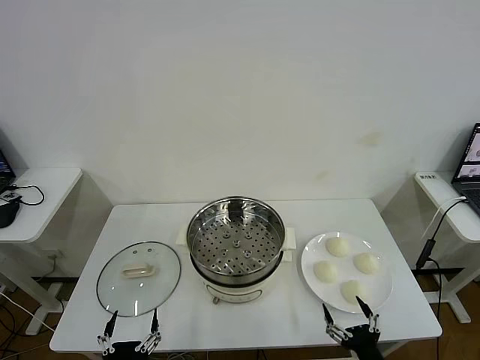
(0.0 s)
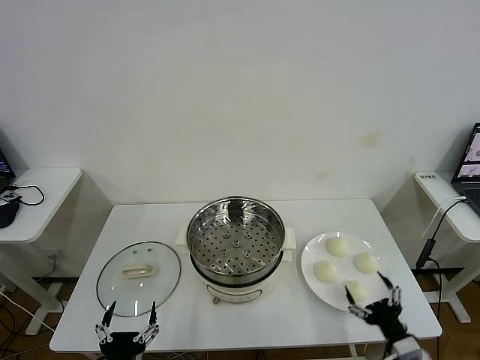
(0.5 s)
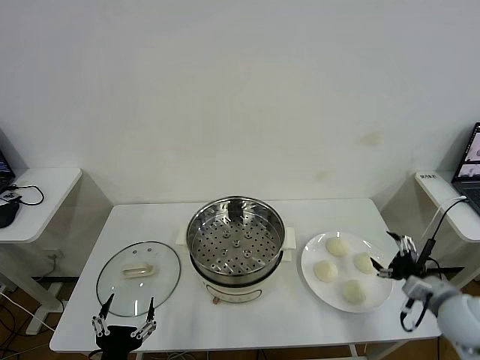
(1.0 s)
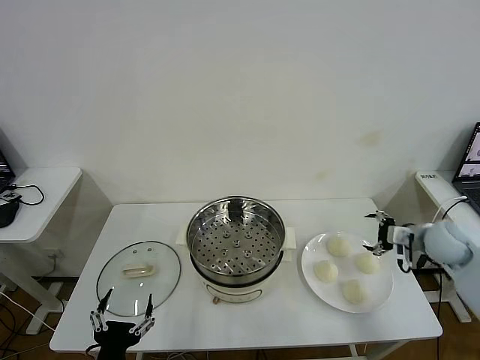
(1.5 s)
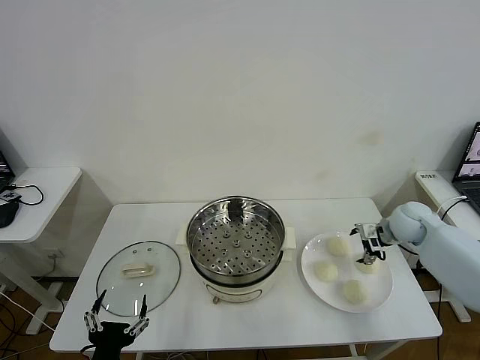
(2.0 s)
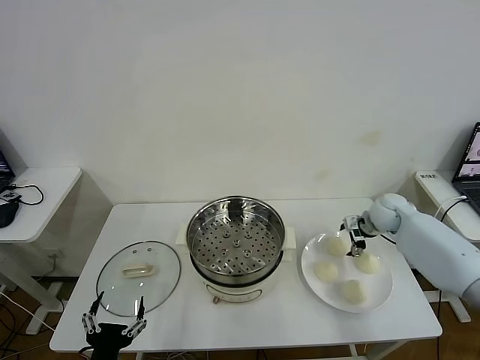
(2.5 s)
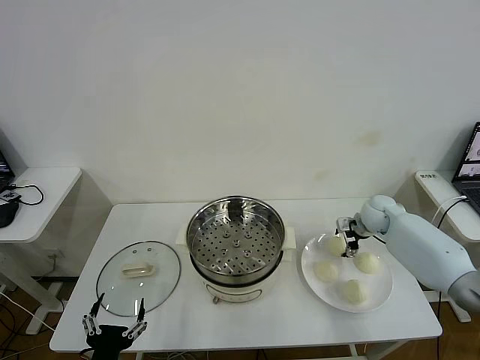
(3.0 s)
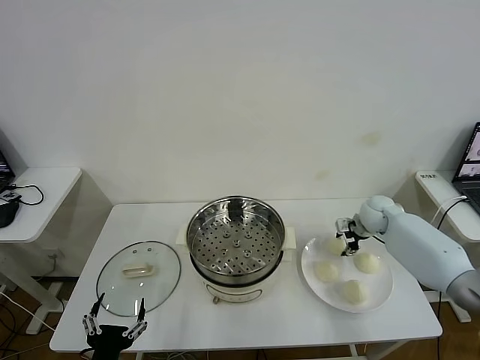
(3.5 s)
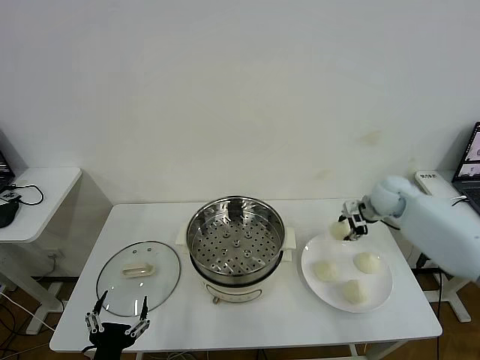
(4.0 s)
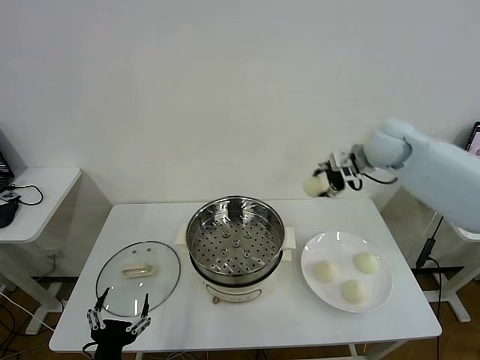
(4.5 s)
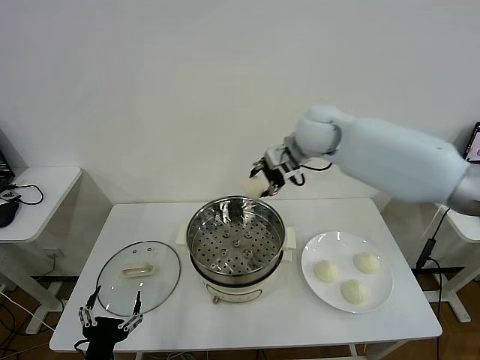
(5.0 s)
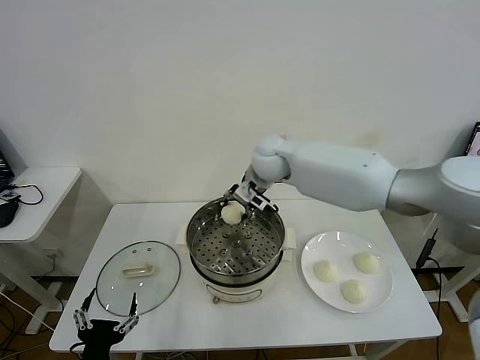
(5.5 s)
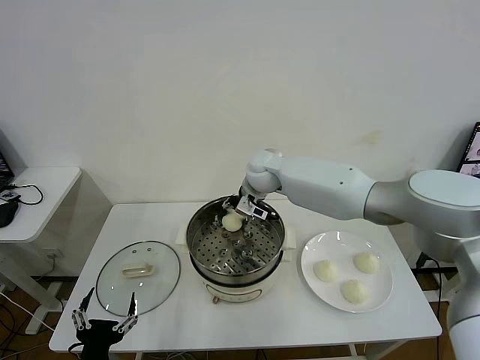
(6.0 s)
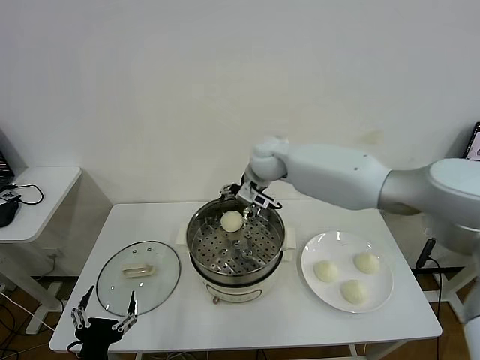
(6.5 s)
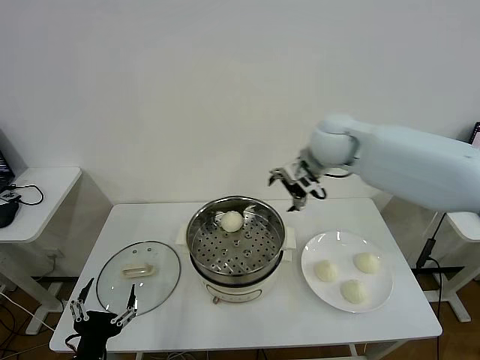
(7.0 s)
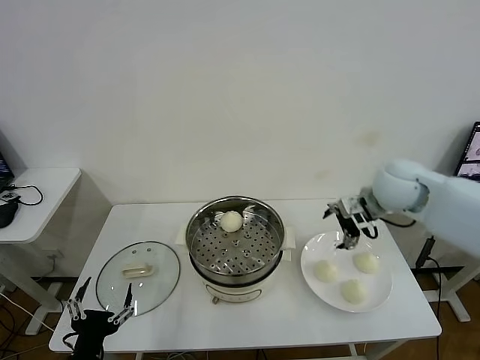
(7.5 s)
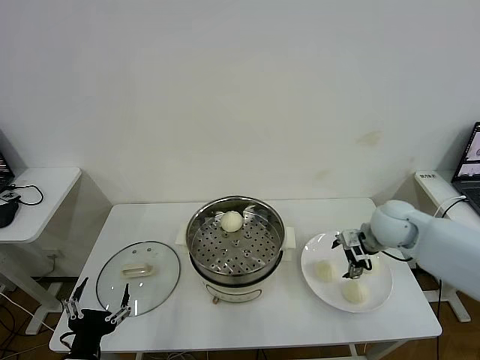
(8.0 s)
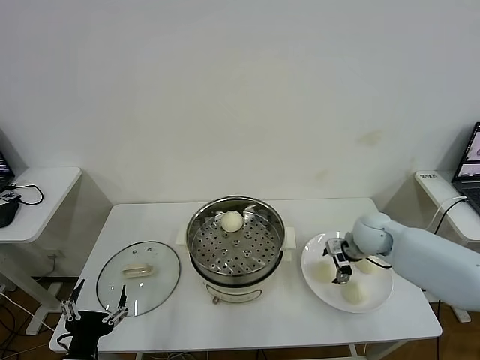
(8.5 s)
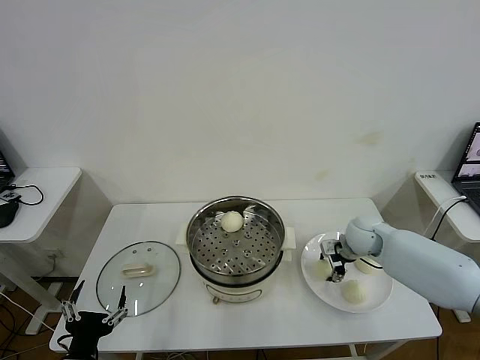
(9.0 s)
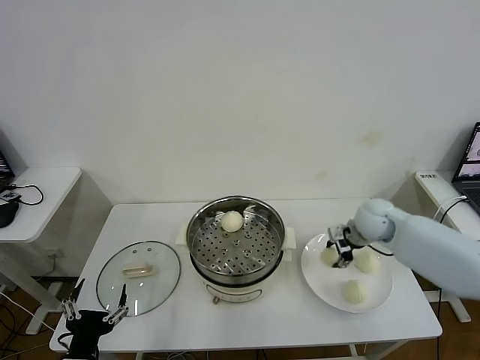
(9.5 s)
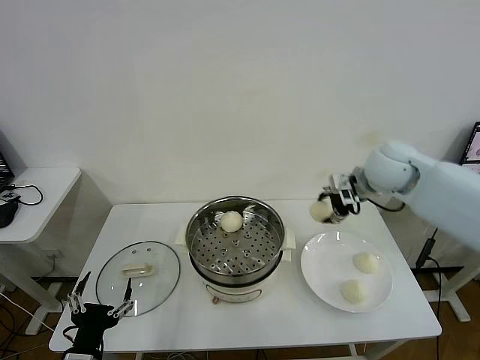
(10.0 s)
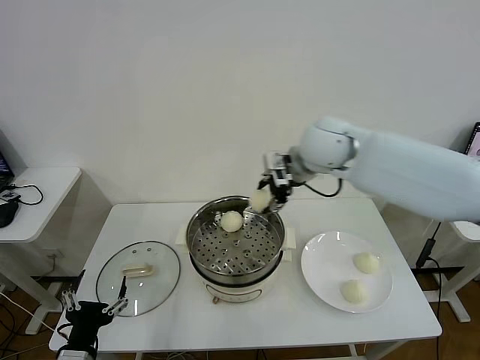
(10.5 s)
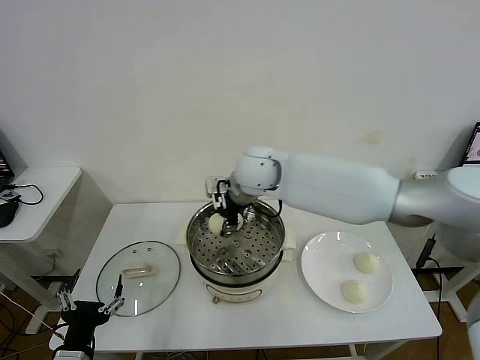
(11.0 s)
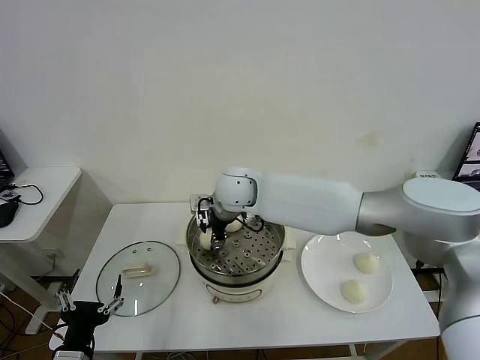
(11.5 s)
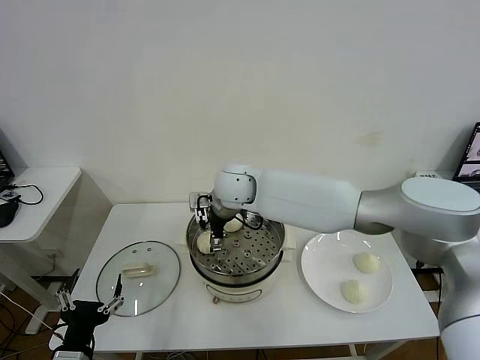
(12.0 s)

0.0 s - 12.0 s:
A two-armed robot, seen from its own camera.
Task of the whole recording: take steamed baozi put them in steamer then cover it.
Step, 0.0 s - 3.0 s: Grasp the baozi in the plate with right gripper.
Step, 3.5 s - 6.0 s: Place the baozi on the steamer with right gripper.
Step, 6.5 s - 9.0 s: Grasp the baozi in the plate with right gripper.
Step, 9.5 s - 12.0 s: Place the baozi on the steamer with right gripper.
2.0 s - 4.0 s: The right gripper is displaced forward by some 5 cm, and closes.
4.0 s - 6.0 s: The right gripper travels to the left by roughly 30 cm.
6.0 s - 8.0 s: The right gripper goes about 30 cm to the right and backward, and opens.
8.0 s - 10.0 s: The right gripper shifts about 10 cm upward, and closes its fingers.
10.0 s - 12.0 s: The right gripper heads to the left, covering some 30 cm, and opens its fingers.

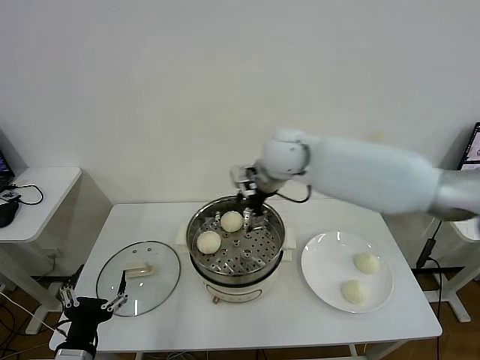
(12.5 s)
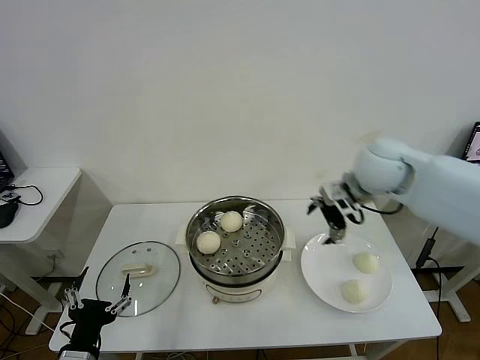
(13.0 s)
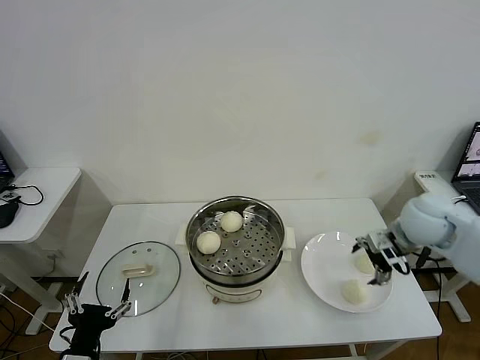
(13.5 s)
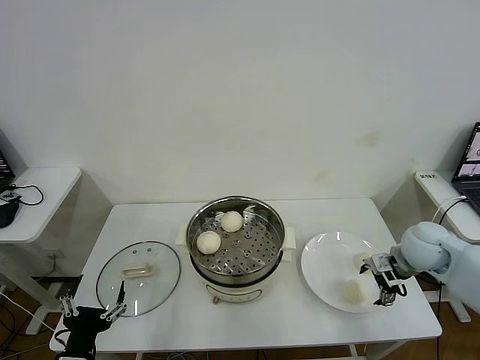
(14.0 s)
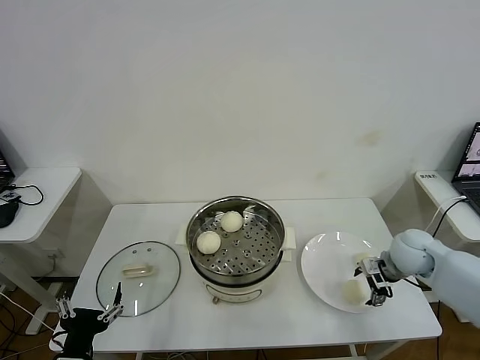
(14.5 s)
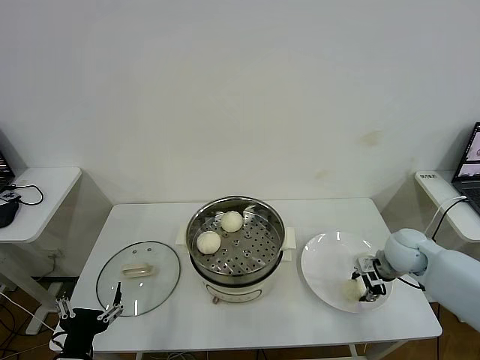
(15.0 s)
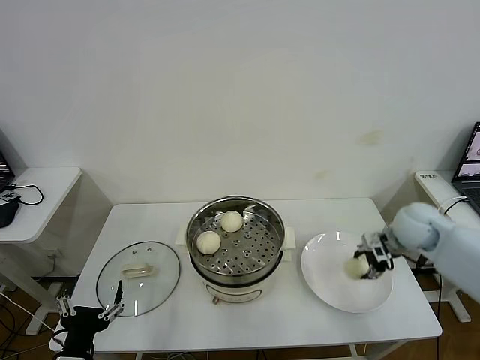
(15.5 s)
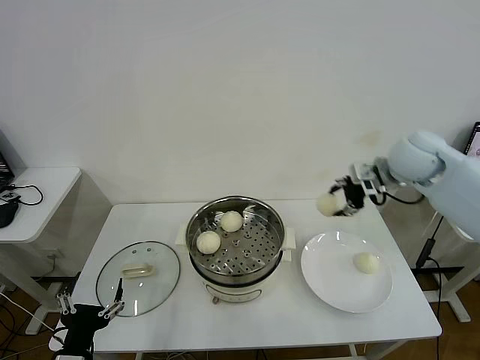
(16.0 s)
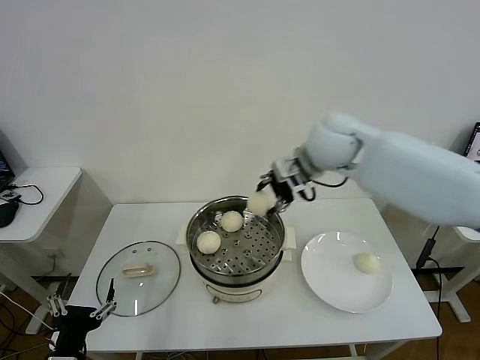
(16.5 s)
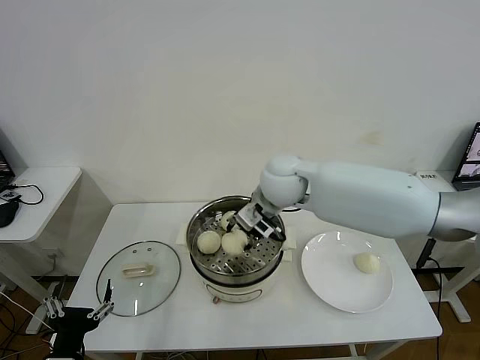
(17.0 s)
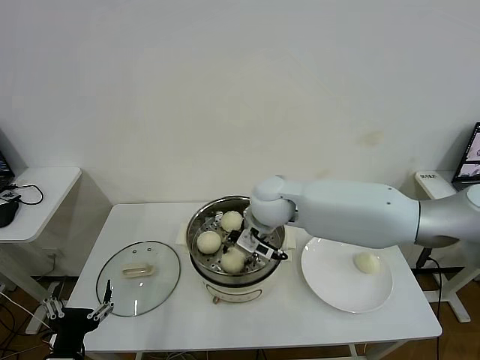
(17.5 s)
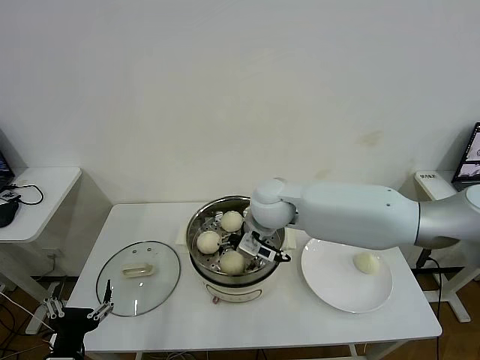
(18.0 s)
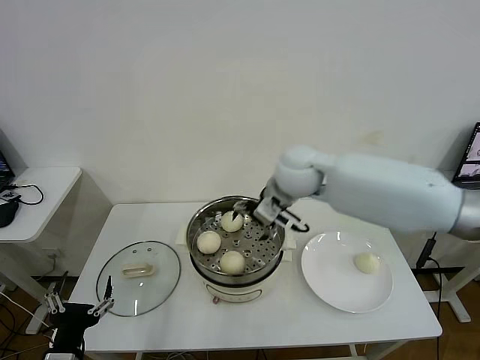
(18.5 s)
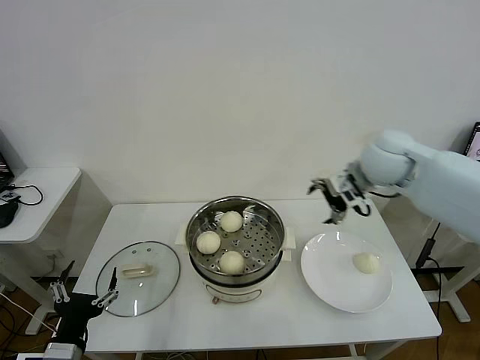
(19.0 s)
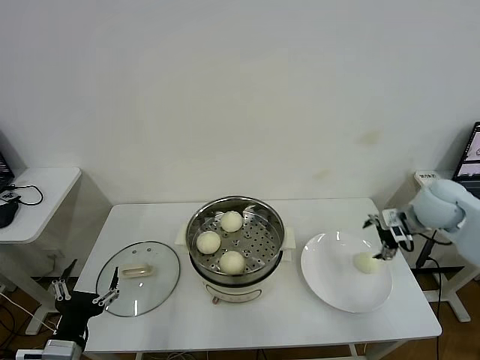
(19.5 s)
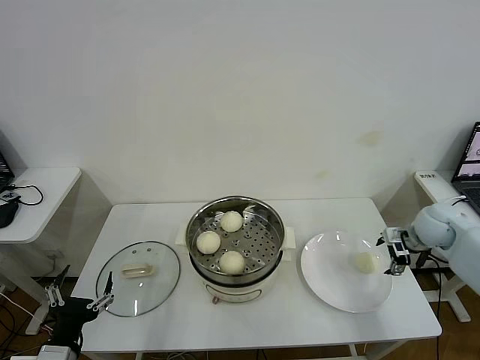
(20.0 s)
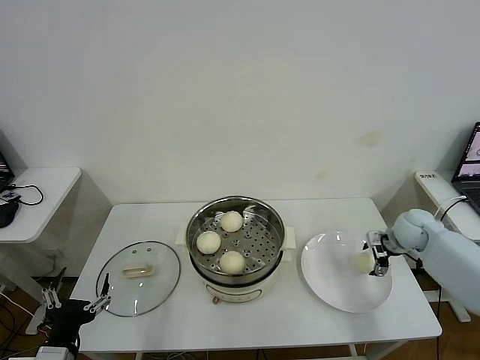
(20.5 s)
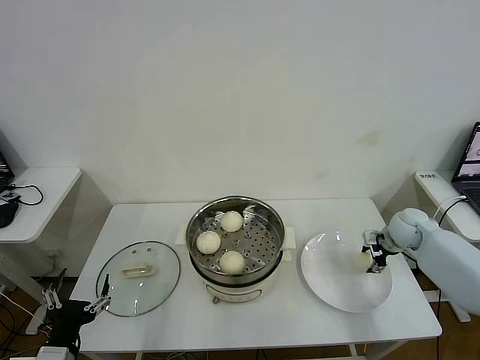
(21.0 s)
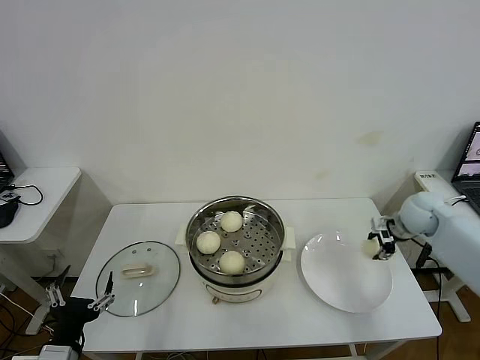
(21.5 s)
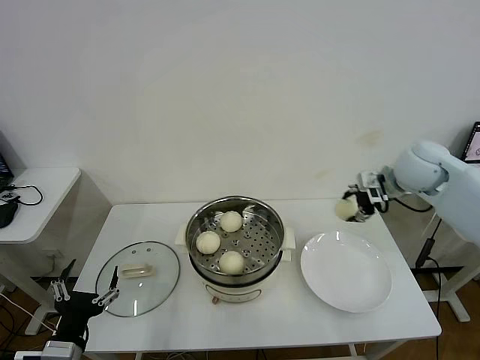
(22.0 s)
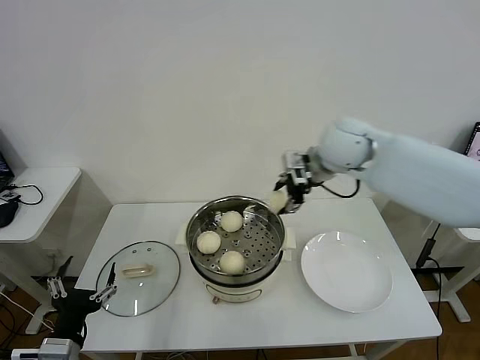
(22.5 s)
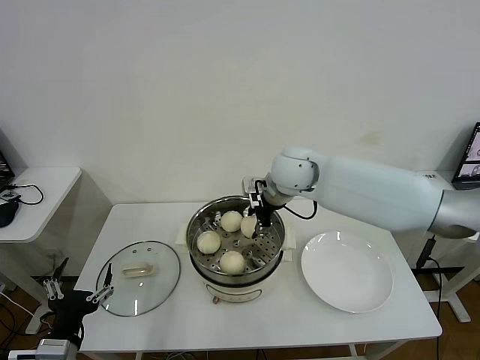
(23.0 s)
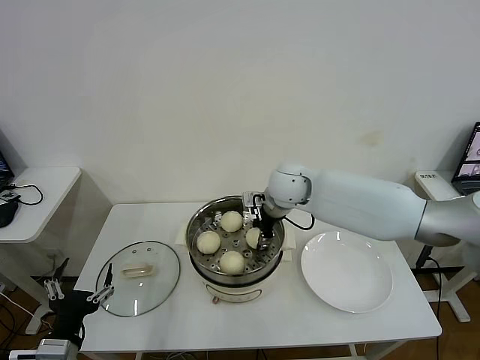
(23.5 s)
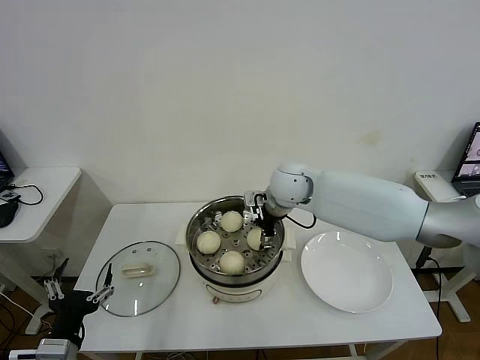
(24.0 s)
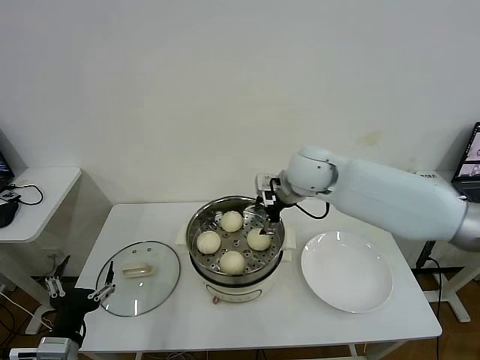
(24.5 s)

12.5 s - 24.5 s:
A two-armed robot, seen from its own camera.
Task of the whole recording: take steamed baozi put them in steamer then cover it.
Step, 12.5 s - 15.0 s: Grasp the baozi in the plate with right gripper.
Step, 15.5 s - 18.0 s: Place the baozi on the steamer with right gripper.
Step, 18.5 s - 21.0 s: Grasp the baozi in the plate with right gripper.
Step, 21.5 s - 24.0 s: Place the baozi on the steamer with right gripper.
12.5 s - 14.5 s: The right gripper moves to the right and downward, about 35 cm.
14.5 s - 16.5 s: The right gripper travels upward and to the left by about 30 cm, and closes up.
16.5 s - 18.5 s: The right gripper moves to the left and downward, some 10 cm, and opens its fingers.
18.5 s - 20.5 s: The right gripper travels to the right and downward by about 40 cm.
20.5 s - 22.5 s: The right gripper travels upward and to the left by roughly 35 cm, and closes up.
22.5 s - 24.5 s: The right gripper travels to the left and downward by some 10 cm, and opens its fingers.

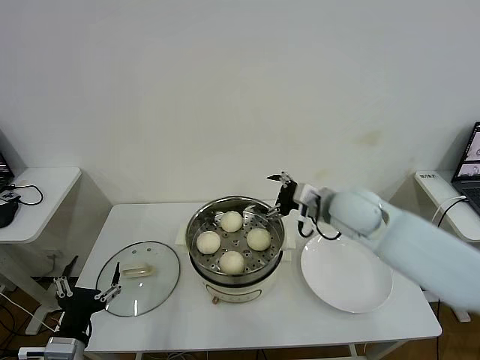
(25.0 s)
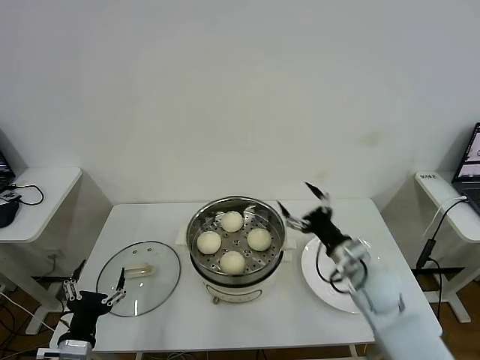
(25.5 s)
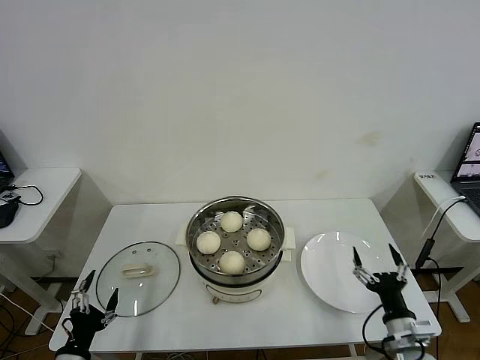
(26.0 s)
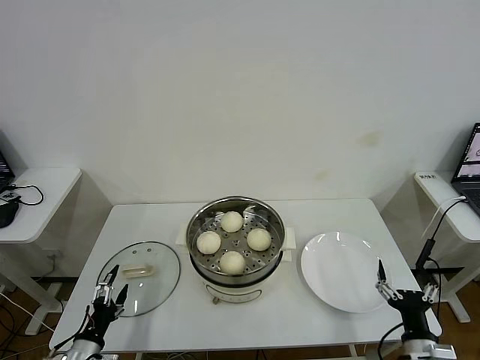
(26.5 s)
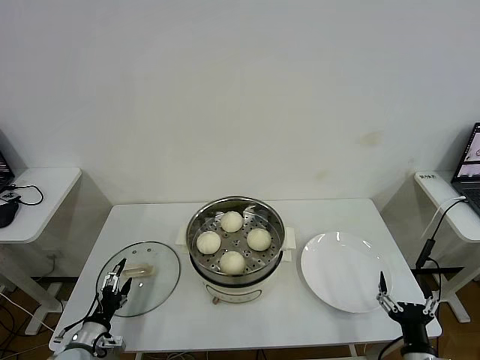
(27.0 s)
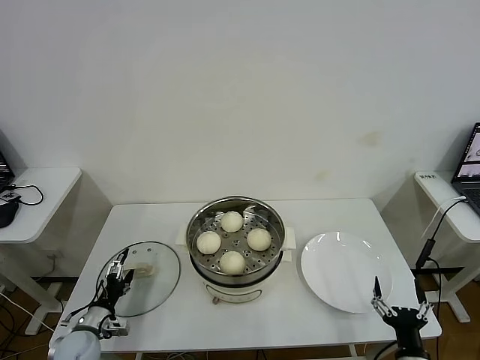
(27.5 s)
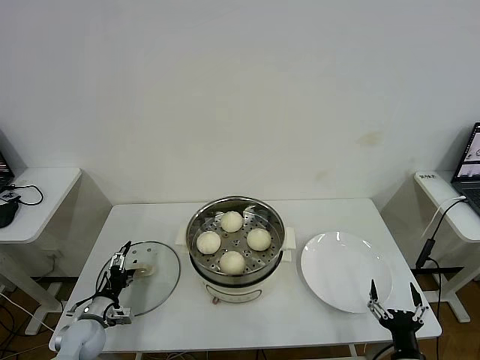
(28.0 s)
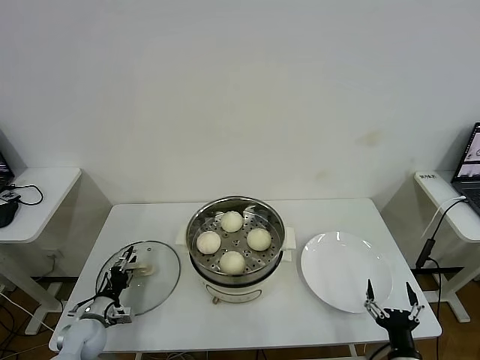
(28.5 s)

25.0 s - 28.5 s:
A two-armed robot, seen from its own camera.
Task of the whole recording: take steamed baozi put them in steamer then cover it.
25.0 s - 27.0 s: The right gripper travels backward, downward and to the right by about 40 cm, while the left gripper is displaced downward, forward and to the left by some 20 cm.
27.0 s - 28.5 s: The left gripper travels forward by roughly 10 cm, and closes up.
